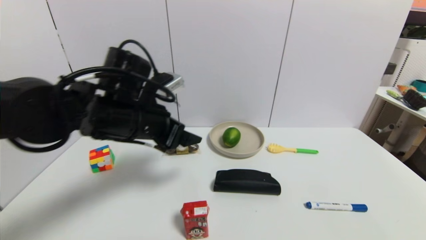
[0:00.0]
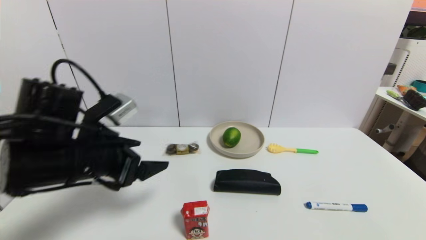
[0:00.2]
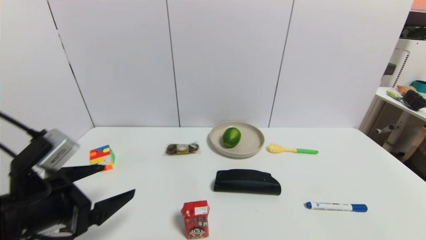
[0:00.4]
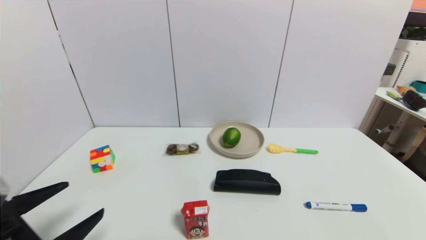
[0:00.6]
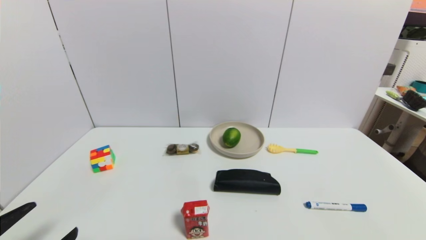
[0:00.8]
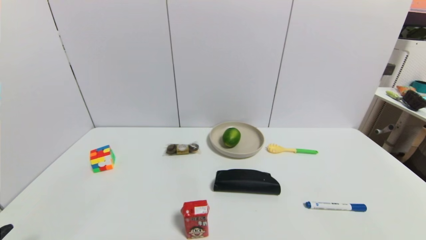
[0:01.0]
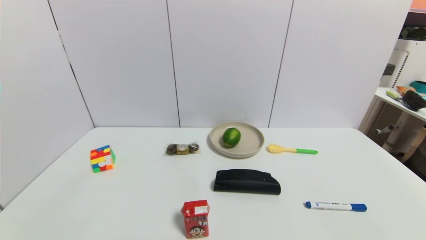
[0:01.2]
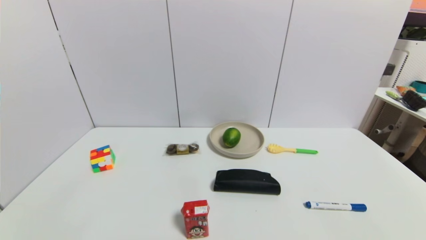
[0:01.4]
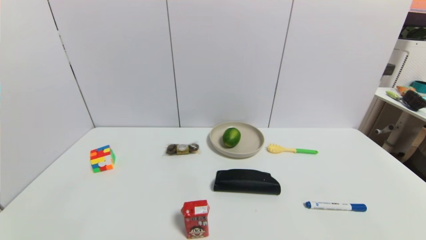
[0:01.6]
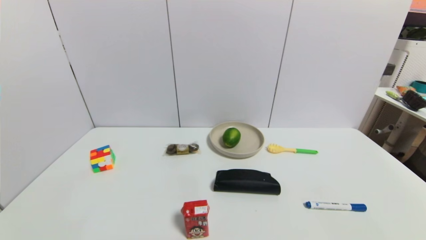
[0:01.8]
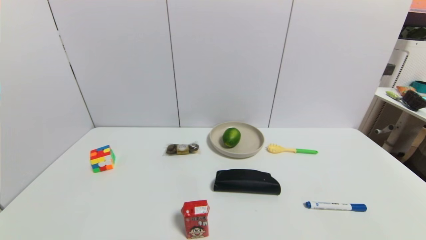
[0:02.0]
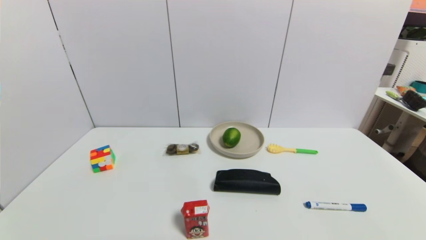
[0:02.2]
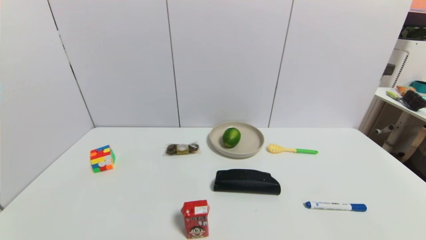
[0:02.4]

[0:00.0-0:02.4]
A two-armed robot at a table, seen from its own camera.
Task of the whole recording: use a gripper to pick the target object and place on the brown plate.
0:00.0 to 0:01.2: The left gripper travels backward, downward and to the left by some 35 cm.
